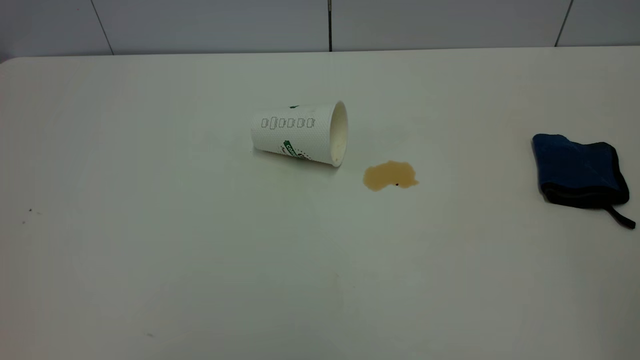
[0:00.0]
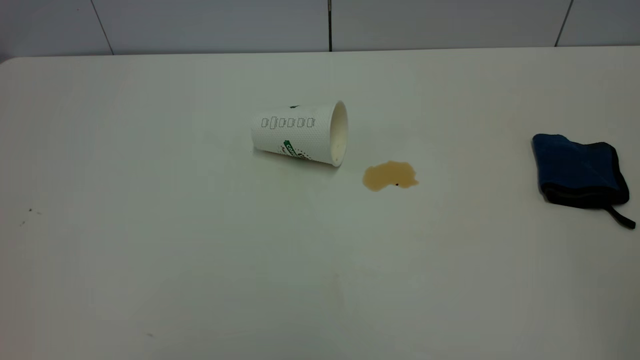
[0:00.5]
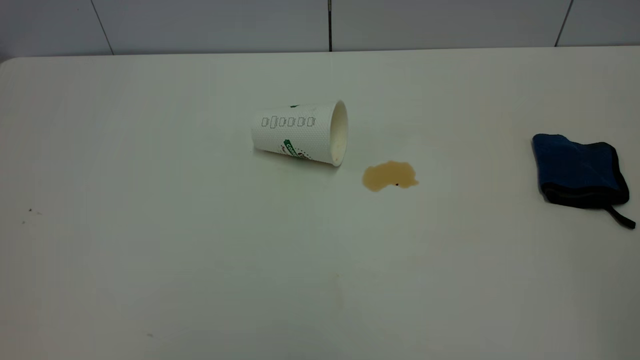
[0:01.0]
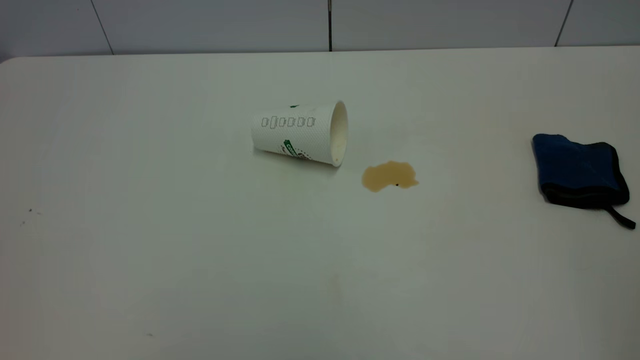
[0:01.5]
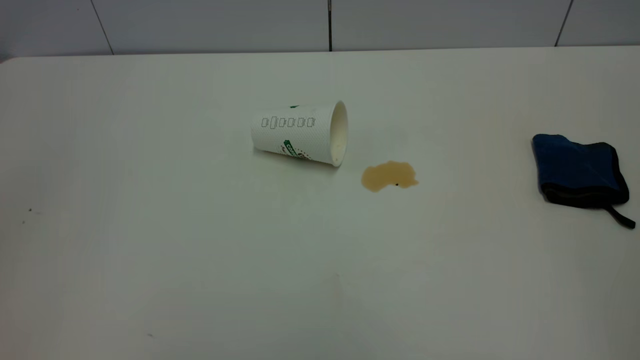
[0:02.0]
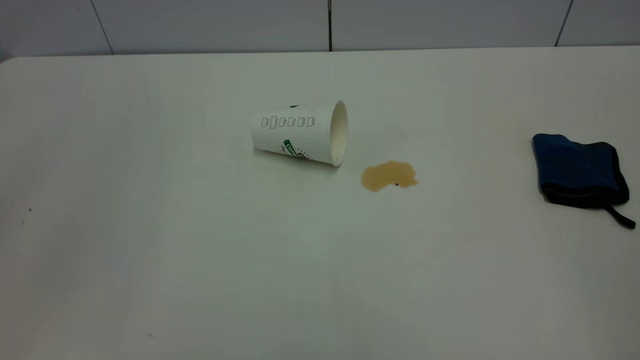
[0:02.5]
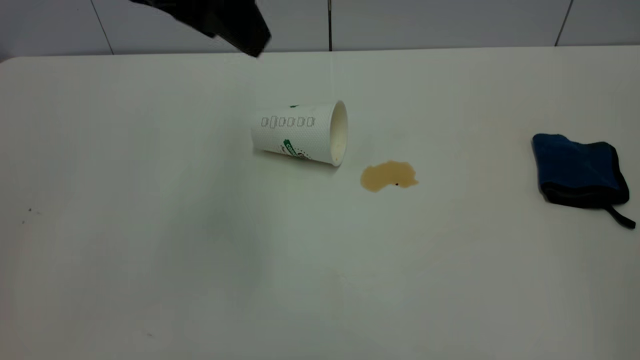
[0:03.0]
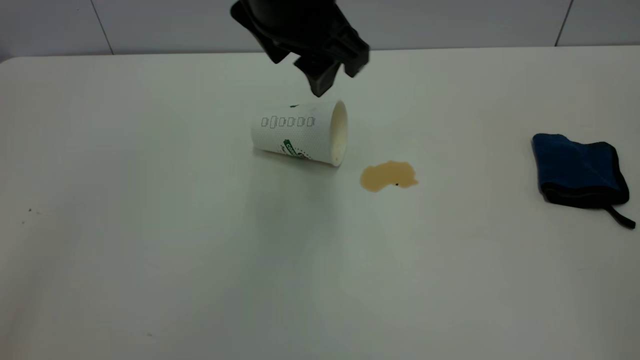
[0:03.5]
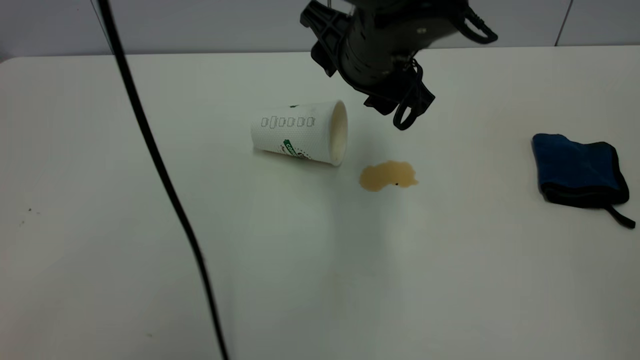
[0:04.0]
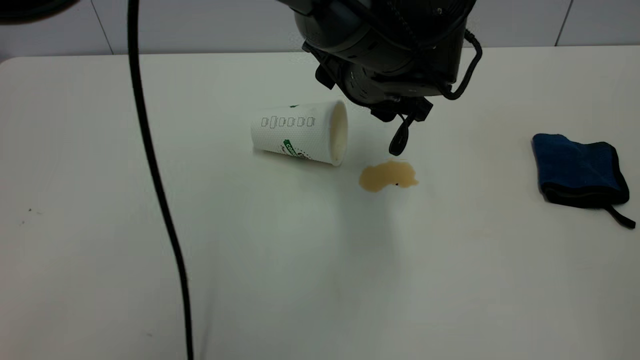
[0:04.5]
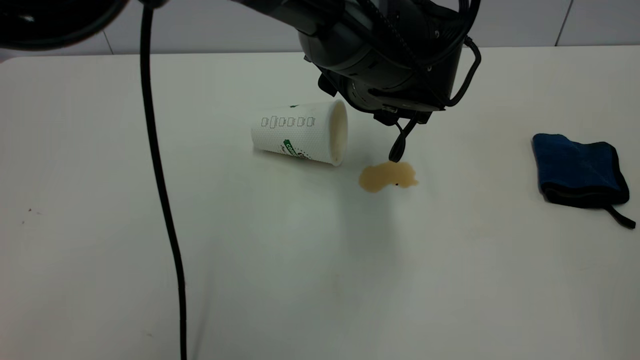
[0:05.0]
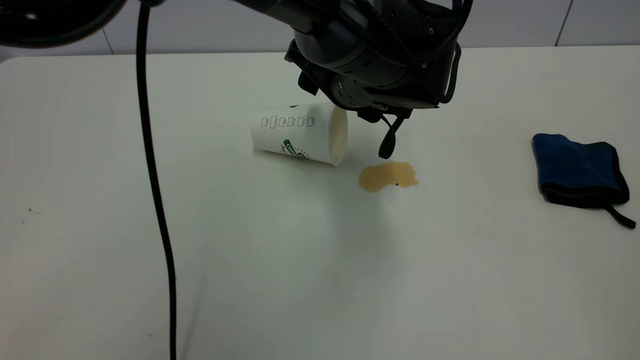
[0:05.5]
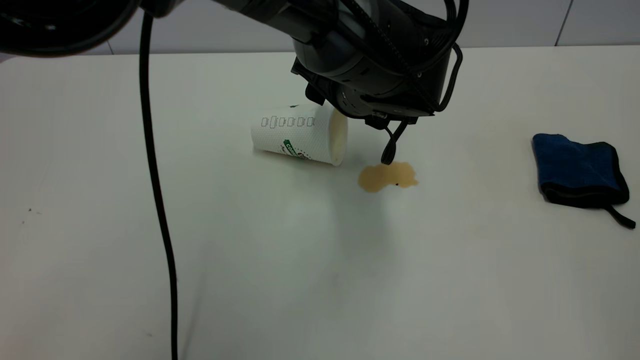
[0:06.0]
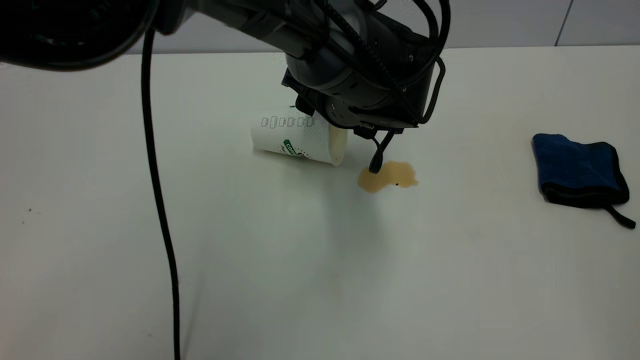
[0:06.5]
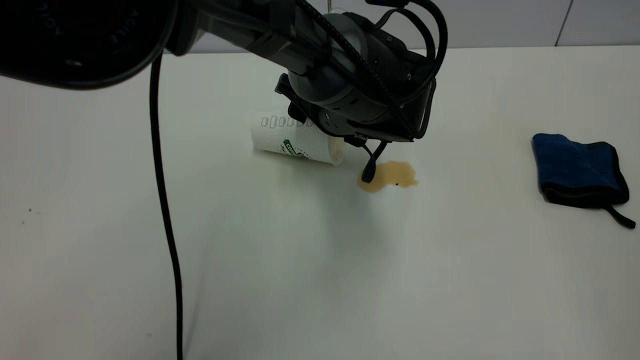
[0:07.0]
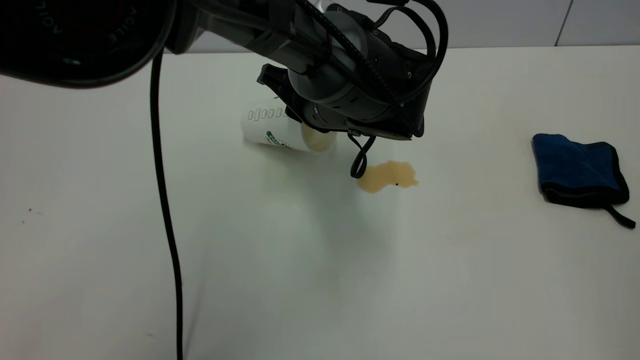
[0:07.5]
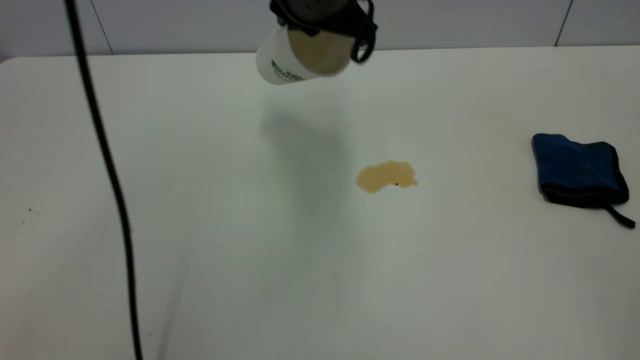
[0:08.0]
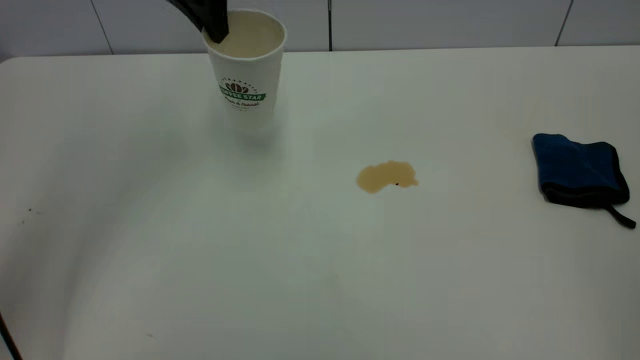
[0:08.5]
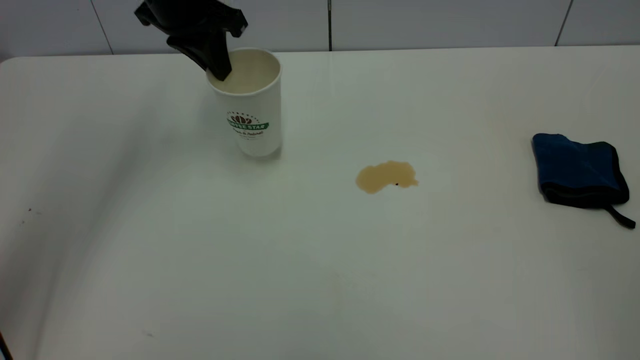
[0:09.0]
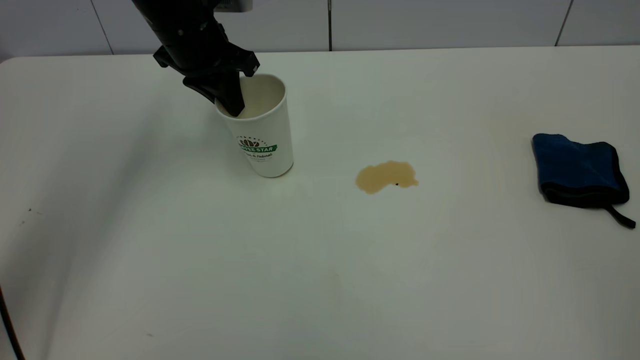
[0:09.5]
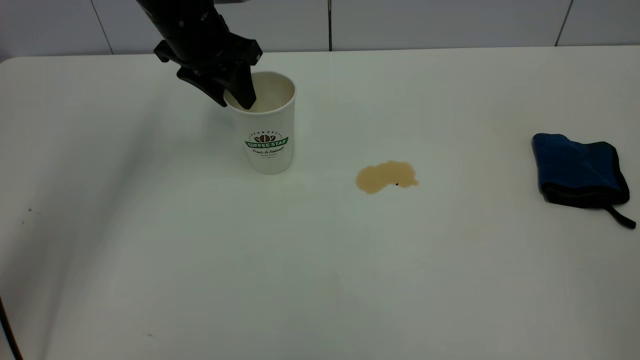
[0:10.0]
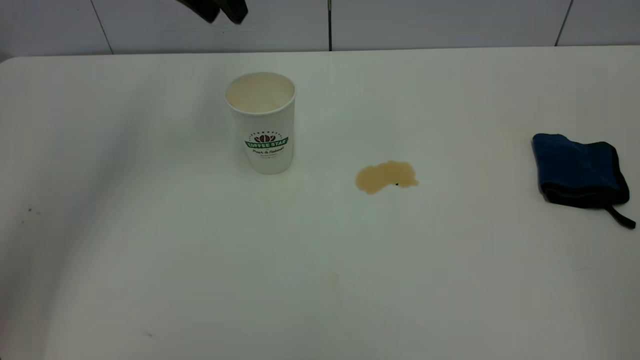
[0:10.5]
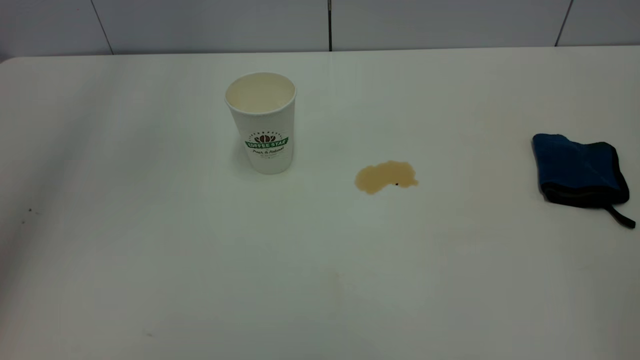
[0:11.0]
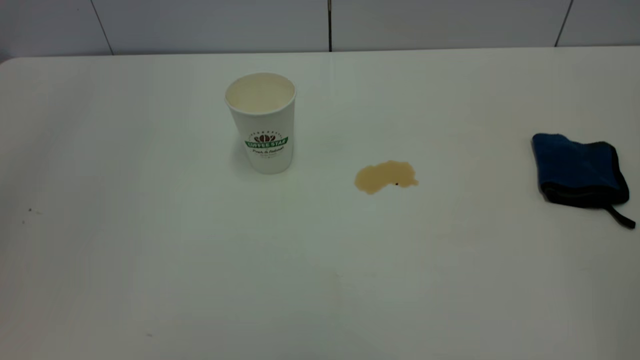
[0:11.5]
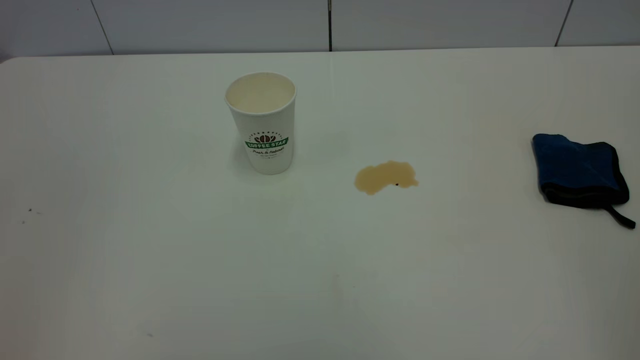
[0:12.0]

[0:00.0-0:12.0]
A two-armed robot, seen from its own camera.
Task of the whole recording: the left gripper pick up the fallen cup and place it upright, the right gripper grasp the blue rag and wipe the tea stain on the table, the right gripper put the blue rag back in its original position.
Step, 0:00.0 to 0:10.0: Stand the paper cup upright.
0:02.0 to 0:04.0: The left gripper heads to the right, forward and downward, covering roughly 50 cm.
0:04.0 to 0:06.0: The left gripper travels downward by some 5 cm.
0:06.0 to 0:08.0: The left gripper travels upward by roughly 10 cm, and closes its fingers.
0:08.0 to 0:10.0: The left gripper shifts roughly 20 cm to the left, forward and downward, and opens its fingers.
0:10.0 to 0:12.0: The left gripper is displaced backward and upward by approximately 40 cm.

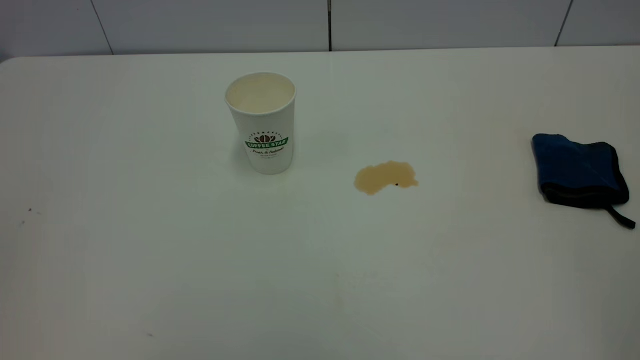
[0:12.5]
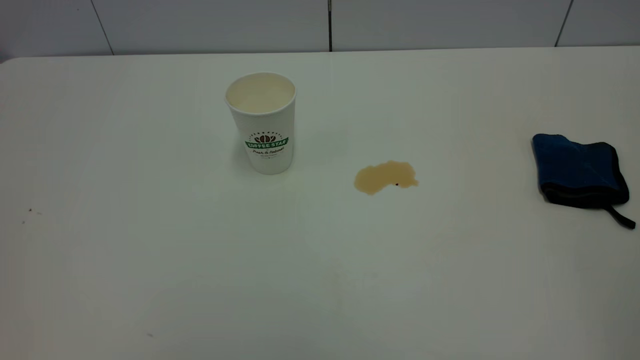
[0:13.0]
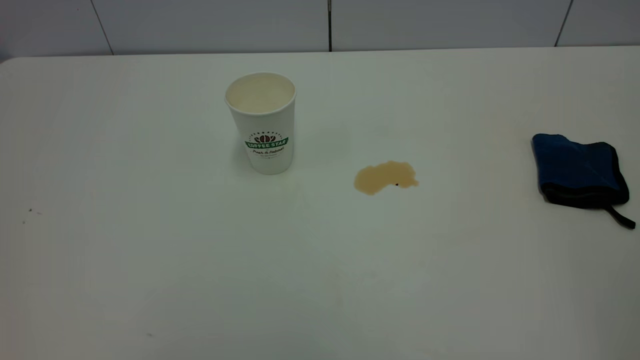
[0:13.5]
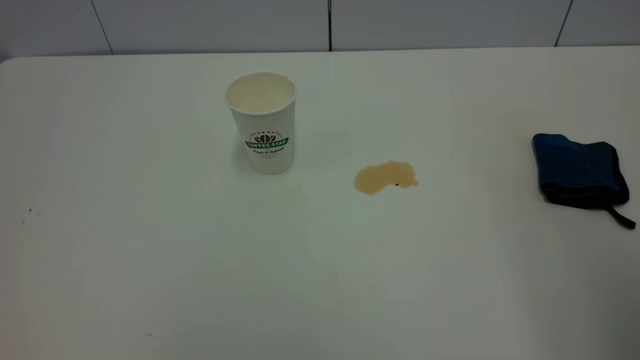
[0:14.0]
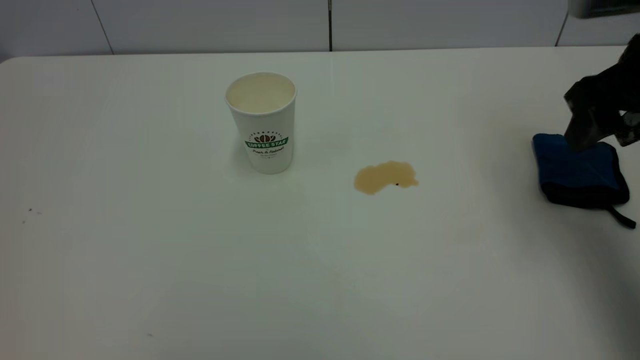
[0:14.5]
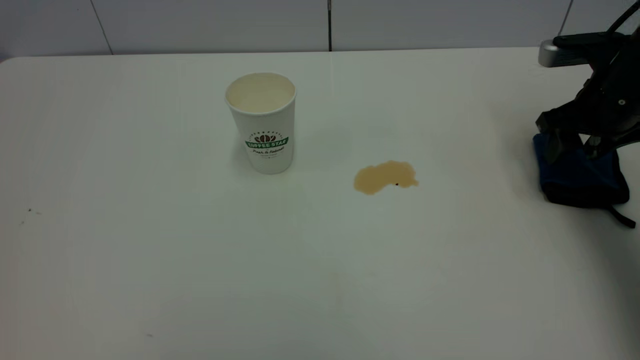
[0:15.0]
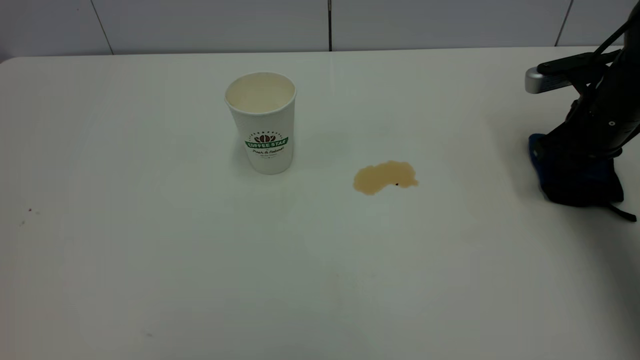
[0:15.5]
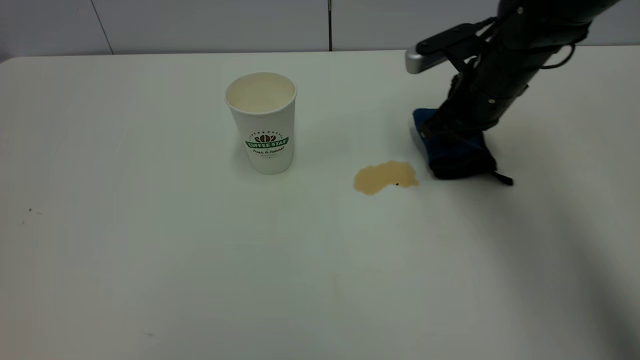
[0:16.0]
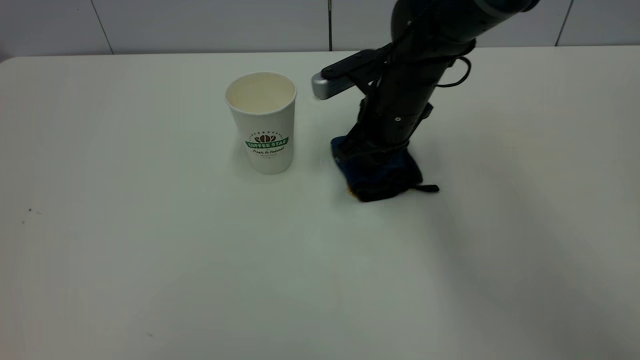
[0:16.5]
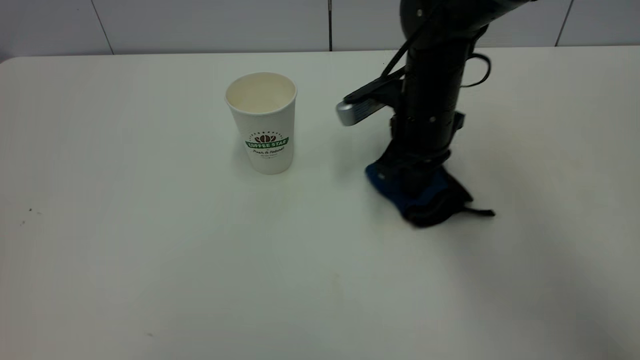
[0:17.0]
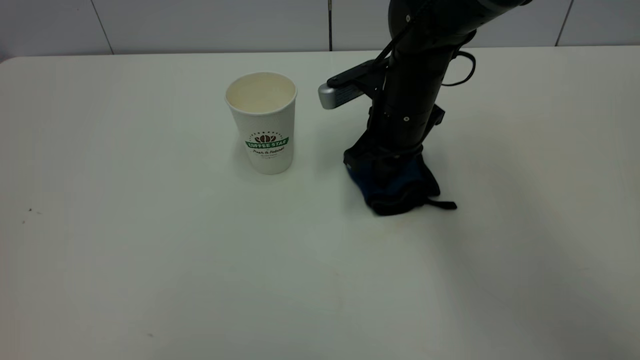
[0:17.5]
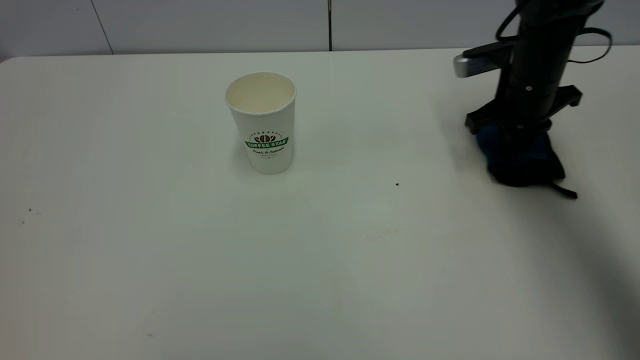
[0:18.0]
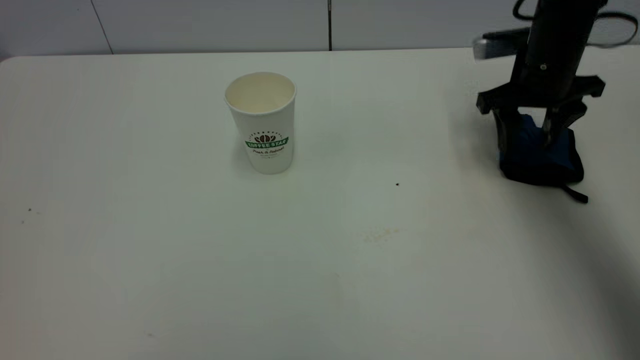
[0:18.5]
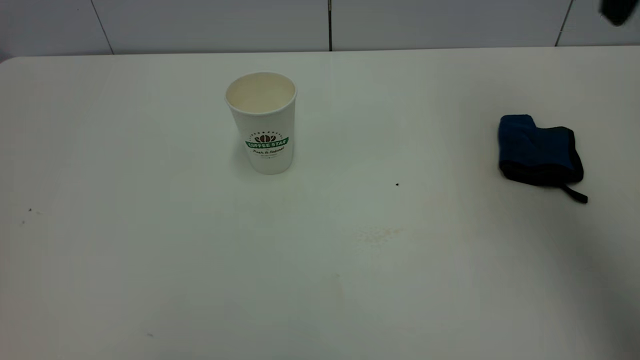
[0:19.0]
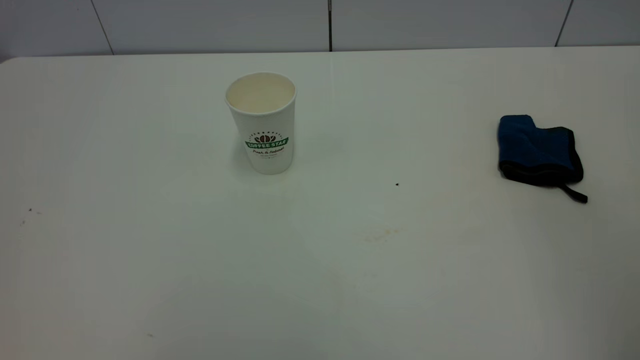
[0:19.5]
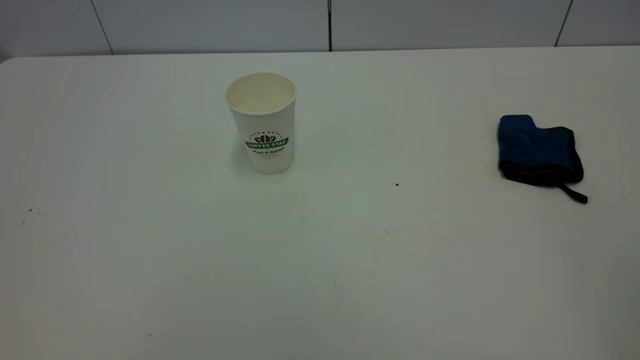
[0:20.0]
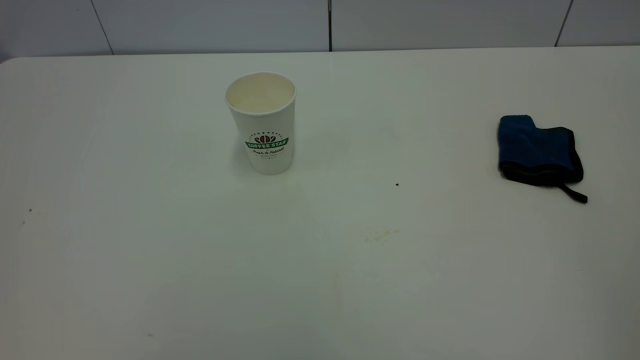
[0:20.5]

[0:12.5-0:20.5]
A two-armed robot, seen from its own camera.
Task of the whole recording: the left gripper pick up the fallen cup and place it upright, the right gripper grasp the blue rag and wipe the tea stain on the table, the right gripper put the blue rag back in its original position.
Step, 0:12.5 to 0:18.5: Wipe the stains off the table with a rag.
0:12.5 to 0:14.5: The right gripper shifts roughly 35 cm forward and downward.
0:14.5 to 0:16.5: The right gripper moves to the left, forward and downward, about 25 cm, and closes.
0:16.5 to 0:18.5: The right gripper moves left and right over some 15 cm, changing direction 2 times, and opens up.
0:18.5 to 0:20.5: The right gripper moves backward and upward, approximately 50 cm.
